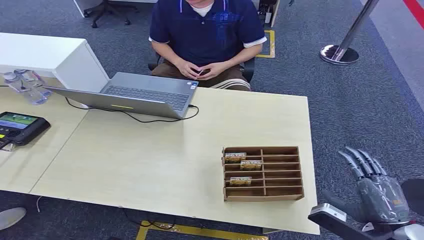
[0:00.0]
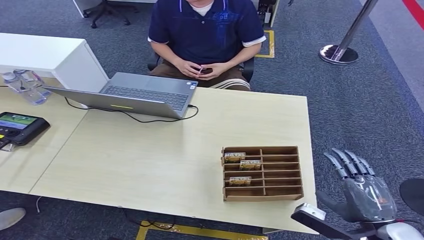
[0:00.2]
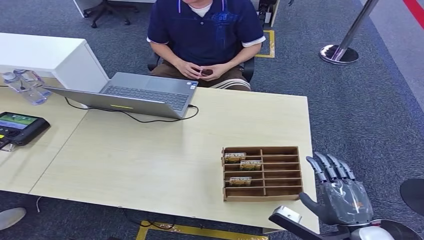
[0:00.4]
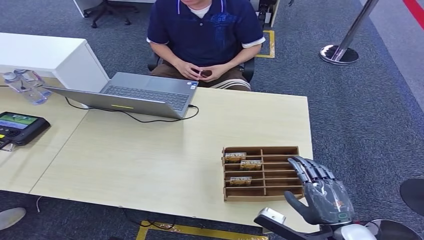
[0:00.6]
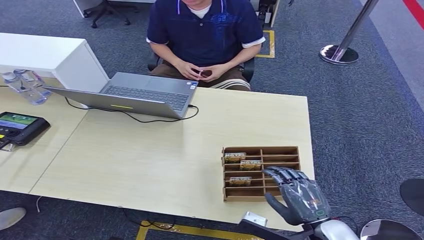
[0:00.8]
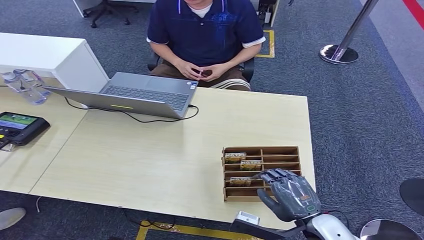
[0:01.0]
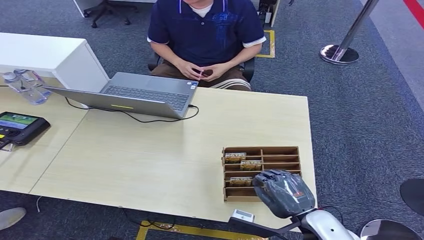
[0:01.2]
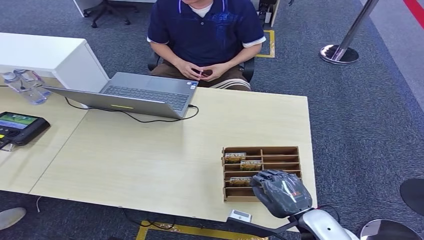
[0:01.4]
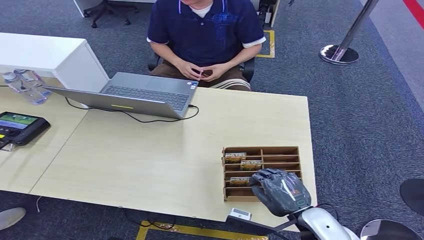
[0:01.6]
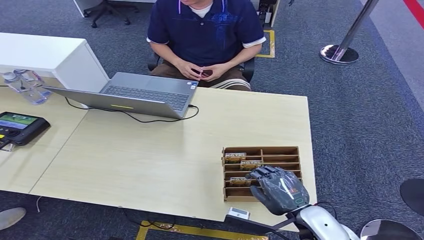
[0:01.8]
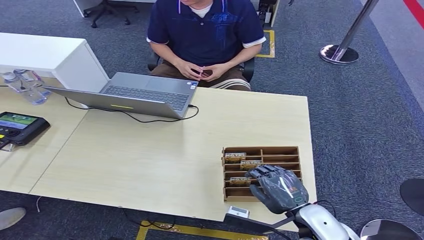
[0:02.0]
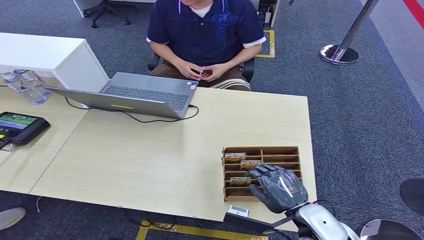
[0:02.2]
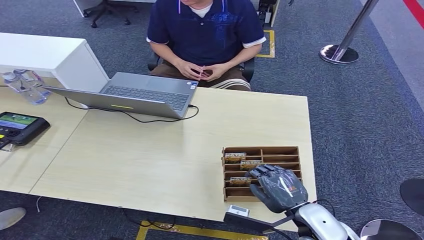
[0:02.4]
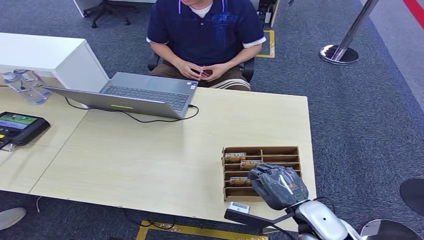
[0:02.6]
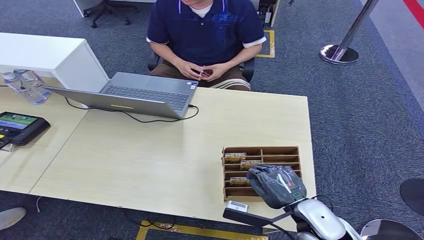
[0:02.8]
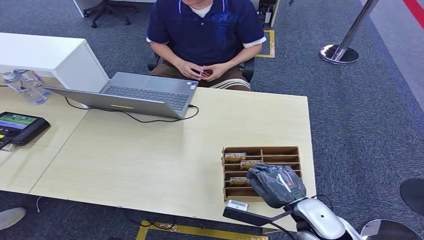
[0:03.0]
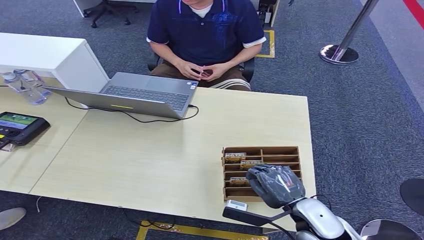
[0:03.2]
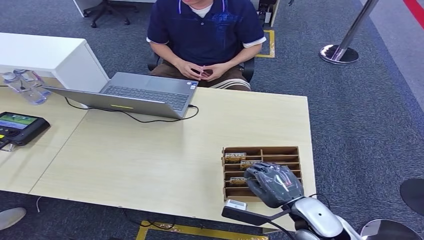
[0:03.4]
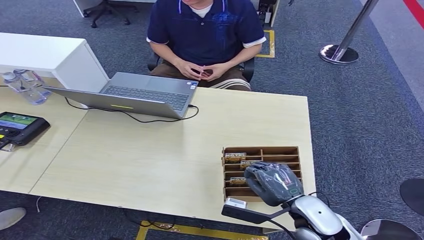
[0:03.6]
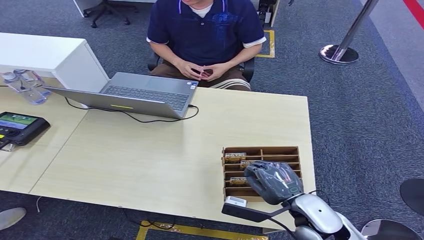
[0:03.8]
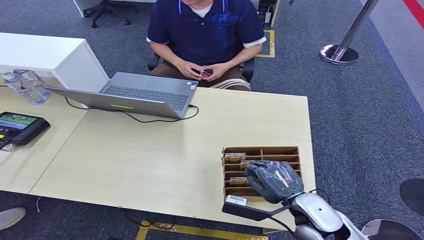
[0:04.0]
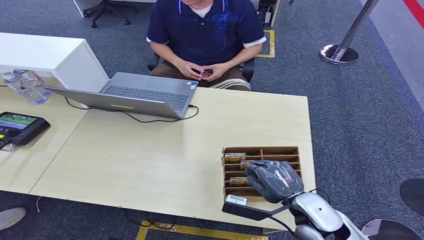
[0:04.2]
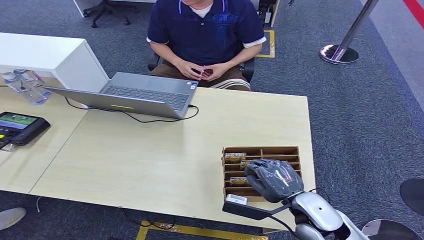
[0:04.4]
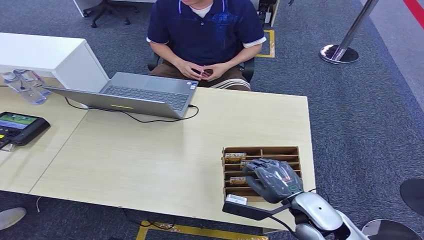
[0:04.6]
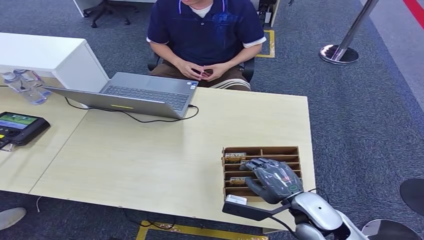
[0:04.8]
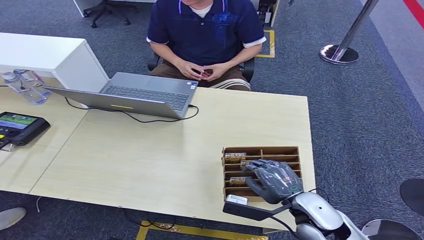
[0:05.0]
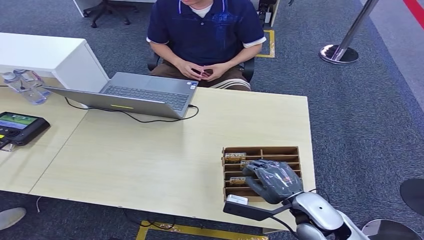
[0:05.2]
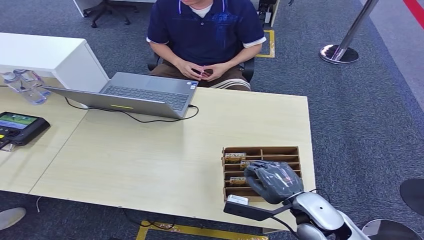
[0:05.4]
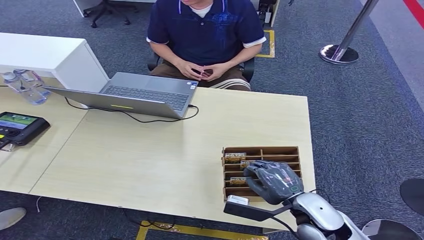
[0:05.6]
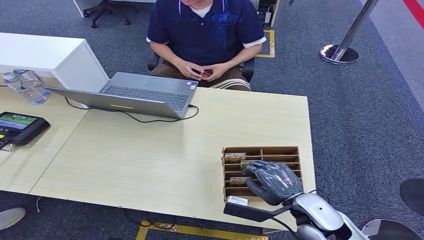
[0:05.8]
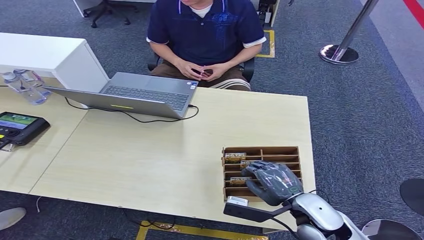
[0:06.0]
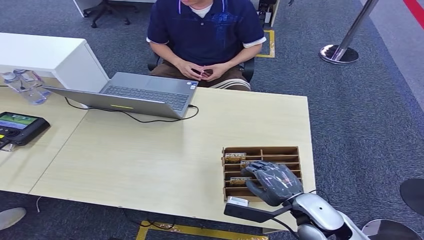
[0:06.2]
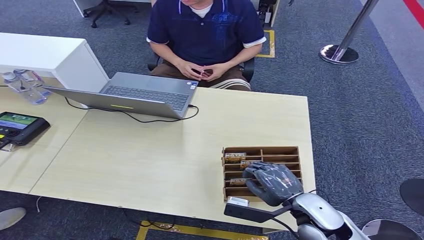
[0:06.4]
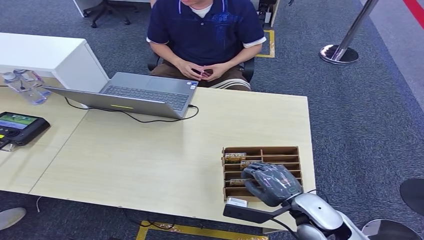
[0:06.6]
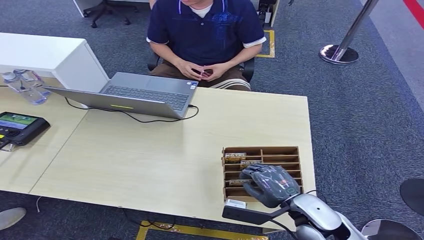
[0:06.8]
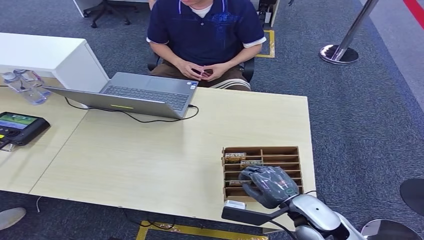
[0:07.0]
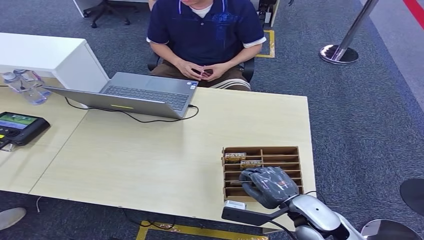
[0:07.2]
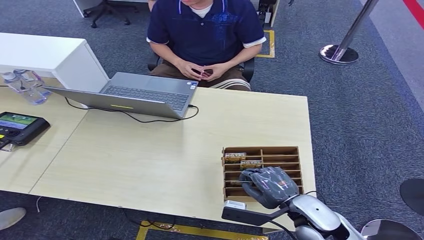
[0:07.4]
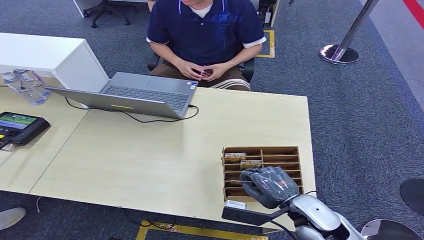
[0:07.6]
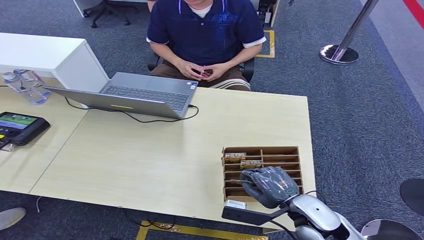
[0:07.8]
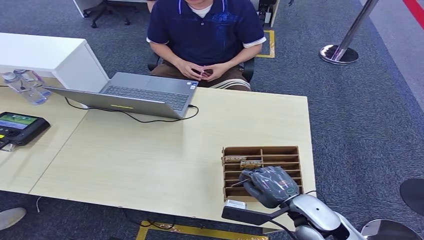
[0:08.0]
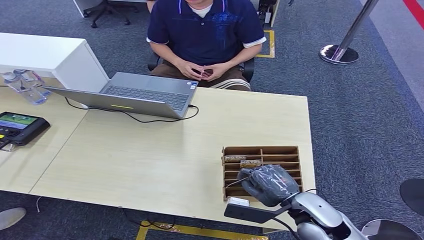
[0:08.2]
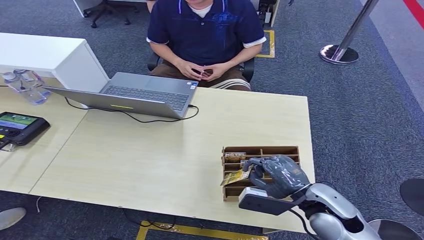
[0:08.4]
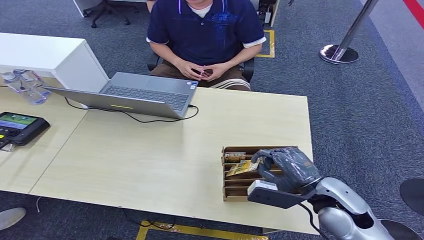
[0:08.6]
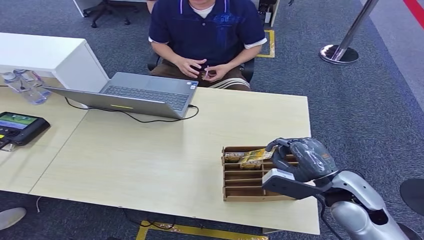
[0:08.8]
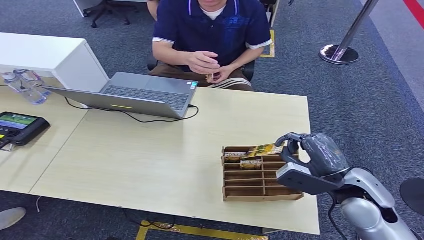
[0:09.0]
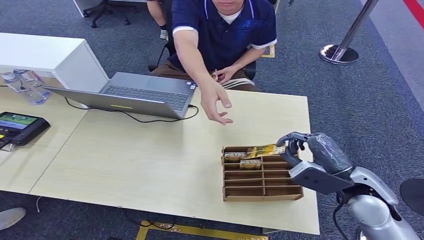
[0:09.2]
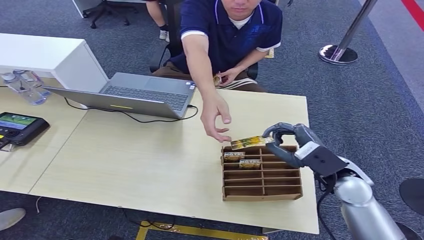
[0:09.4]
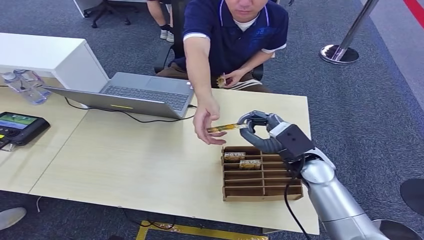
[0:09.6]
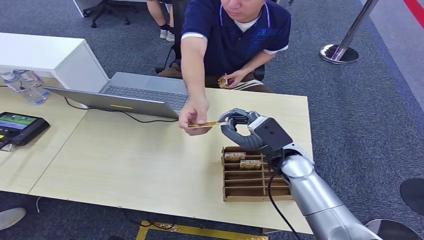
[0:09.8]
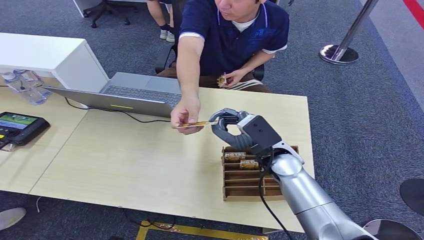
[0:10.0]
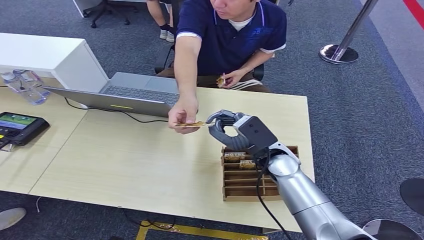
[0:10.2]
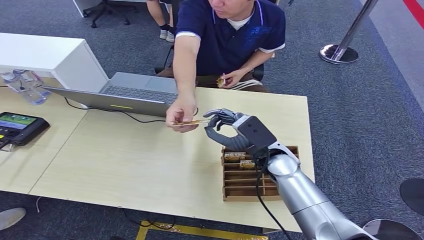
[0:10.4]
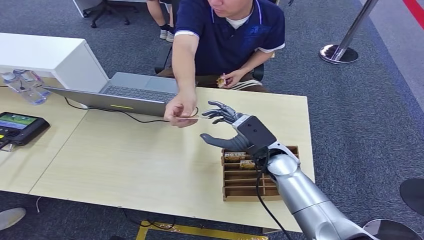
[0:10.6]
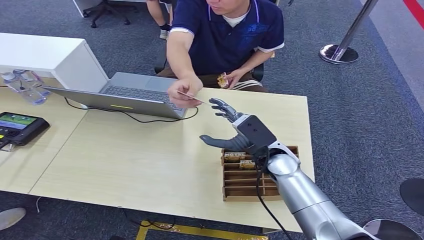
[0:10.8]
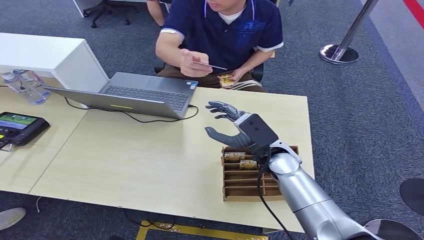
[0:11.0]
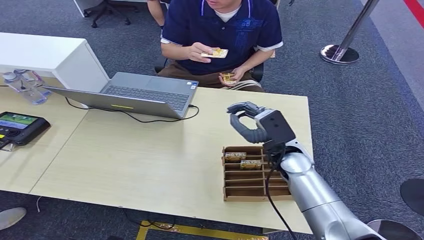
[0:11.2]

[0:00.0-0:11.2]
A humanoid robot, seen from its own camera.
Step, 0:00.0 to 0:09.0: Pick up the room card from the card holder.
0:01.6 to 0:04.8: The hands stay close to where they were, moving slightly.
0:04.8 to 0:06.4: Both hands stay put.
0:06.4 to 0:08.0: Both hands stay about where they are.
0:08.0 to 0:09.6: The right hand moves forward and upward, approximately 15 cm.

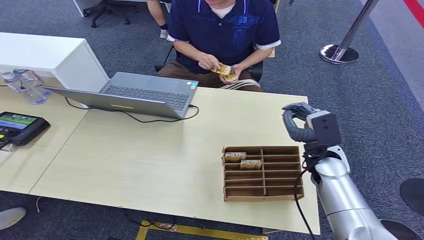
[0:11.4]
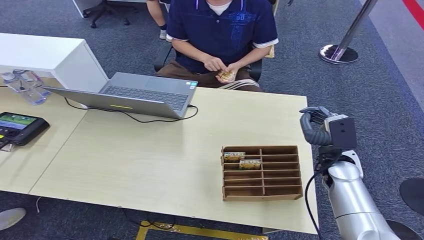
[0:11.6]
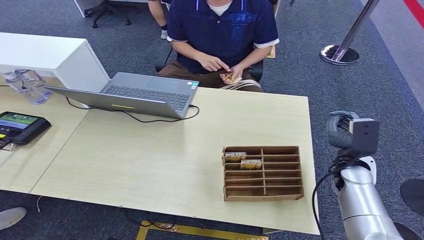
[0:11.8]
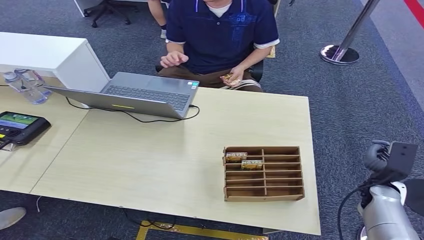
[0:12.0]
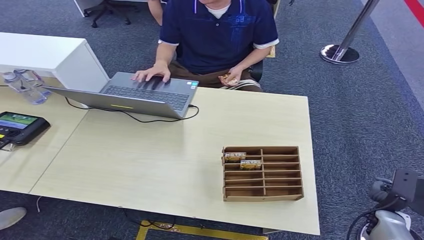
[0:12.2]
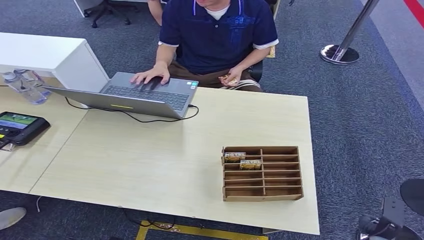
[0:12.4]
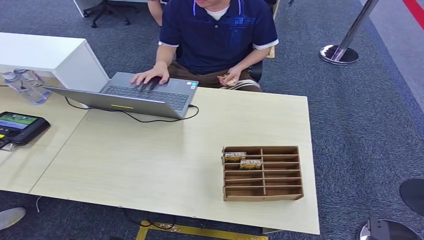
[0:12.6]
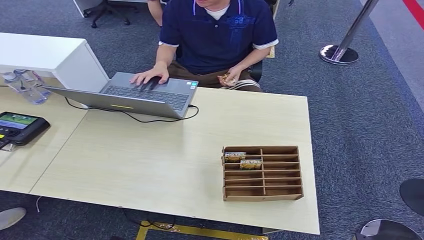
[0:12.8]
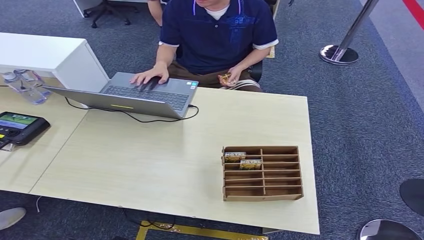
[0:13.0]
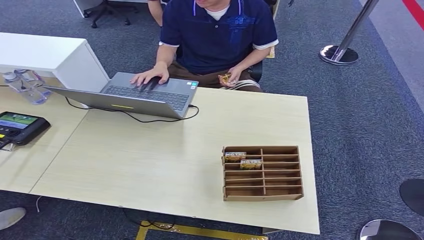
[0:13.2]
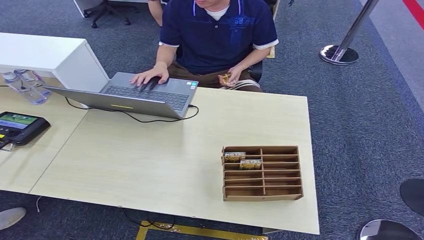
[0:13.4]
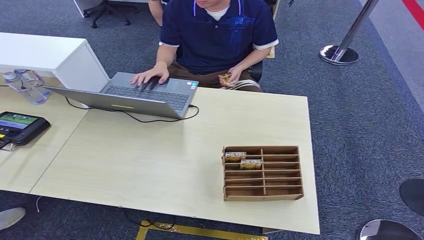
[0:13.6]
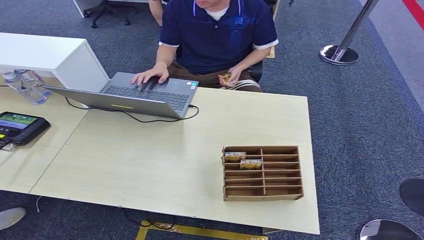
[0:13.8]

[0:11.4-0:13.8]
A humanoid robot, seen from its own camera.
Step, 0:11.4 to 0:13.8: Hand the room card to the target.
0:11.4 to 0:12.6: The right hand is displaced downward, backward and to the right by some 40 cm.
